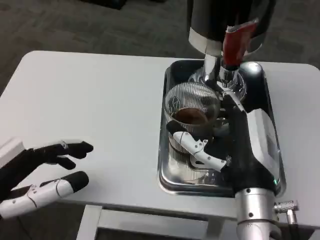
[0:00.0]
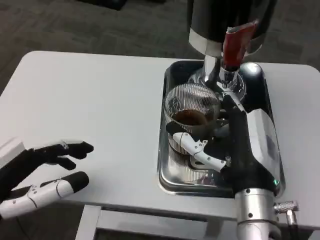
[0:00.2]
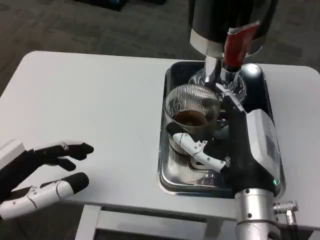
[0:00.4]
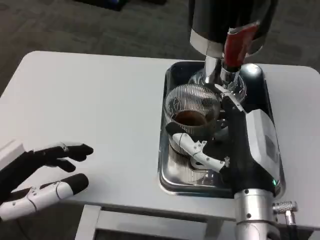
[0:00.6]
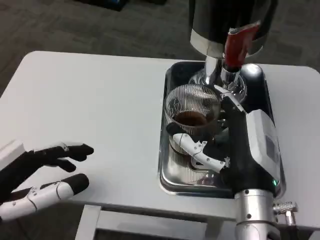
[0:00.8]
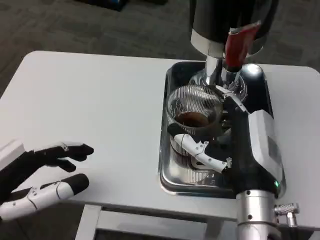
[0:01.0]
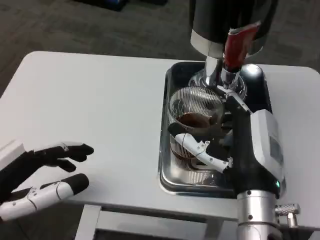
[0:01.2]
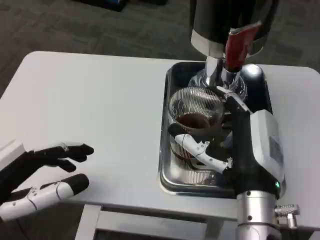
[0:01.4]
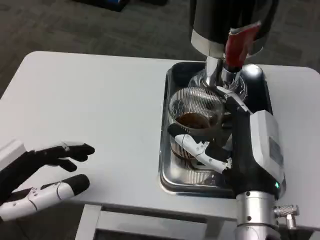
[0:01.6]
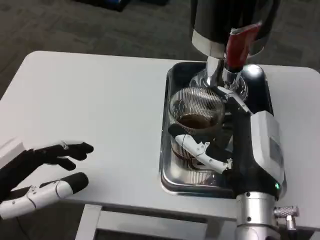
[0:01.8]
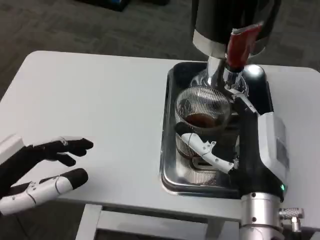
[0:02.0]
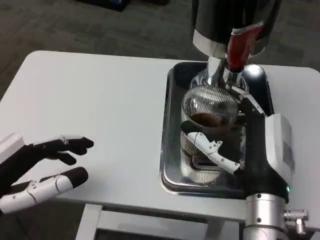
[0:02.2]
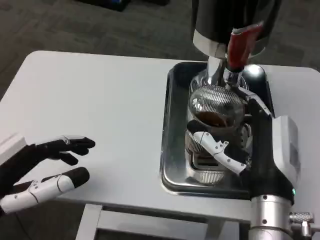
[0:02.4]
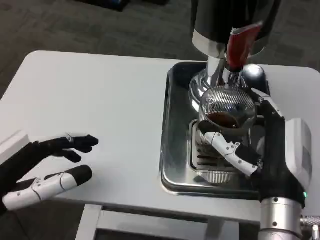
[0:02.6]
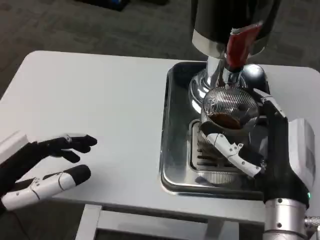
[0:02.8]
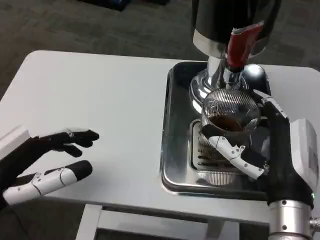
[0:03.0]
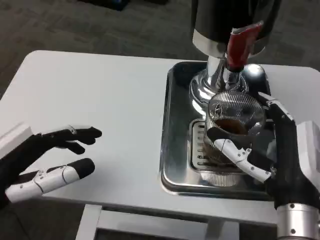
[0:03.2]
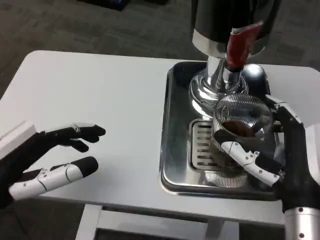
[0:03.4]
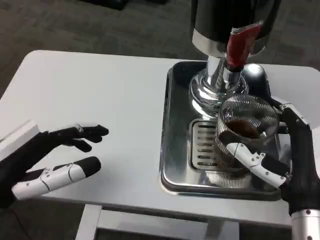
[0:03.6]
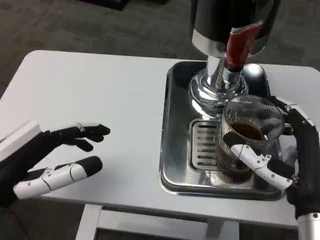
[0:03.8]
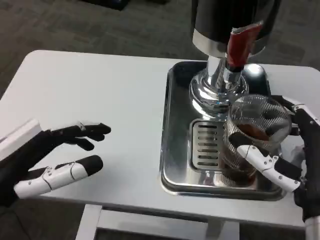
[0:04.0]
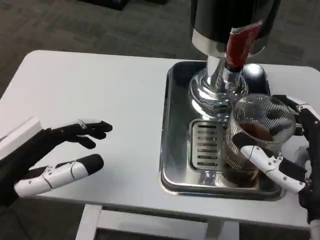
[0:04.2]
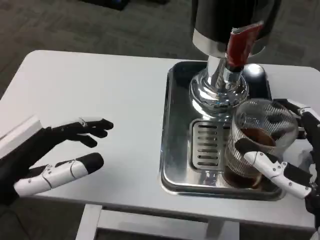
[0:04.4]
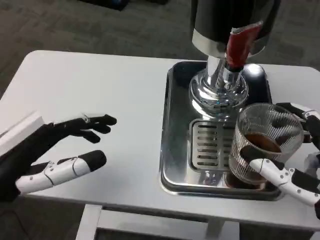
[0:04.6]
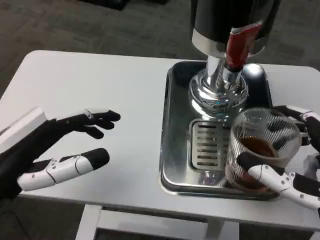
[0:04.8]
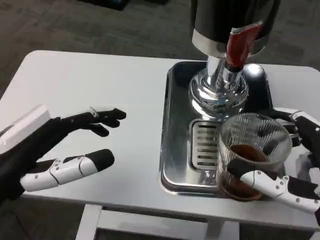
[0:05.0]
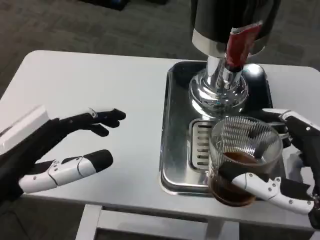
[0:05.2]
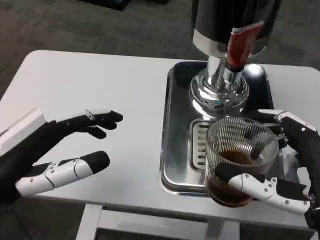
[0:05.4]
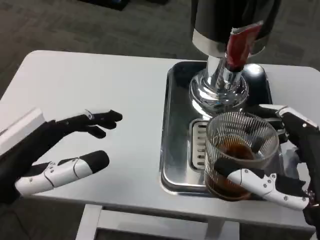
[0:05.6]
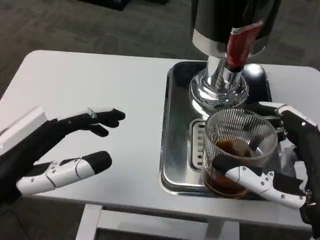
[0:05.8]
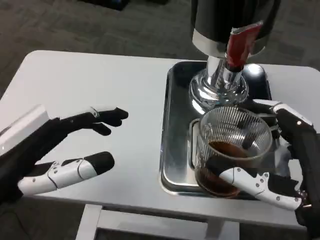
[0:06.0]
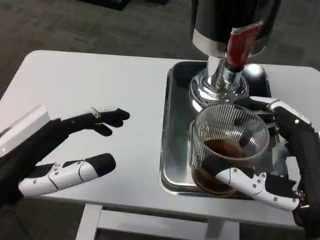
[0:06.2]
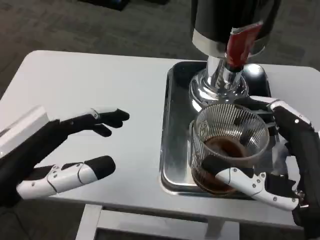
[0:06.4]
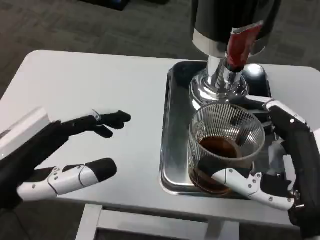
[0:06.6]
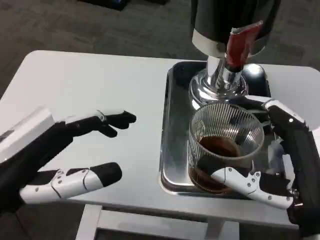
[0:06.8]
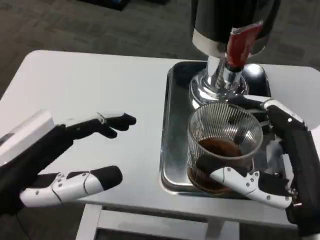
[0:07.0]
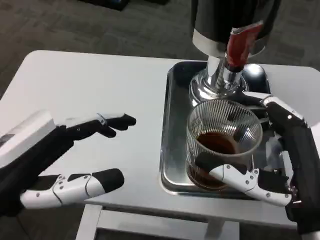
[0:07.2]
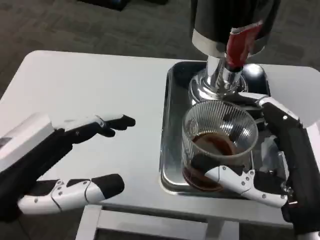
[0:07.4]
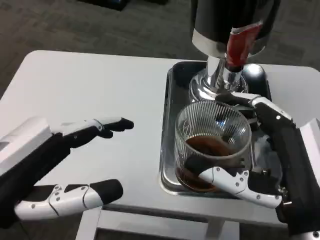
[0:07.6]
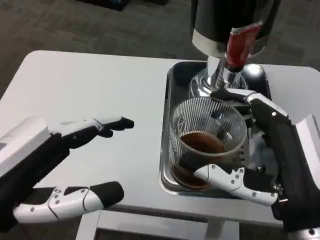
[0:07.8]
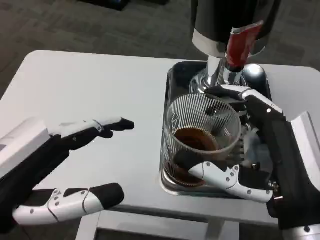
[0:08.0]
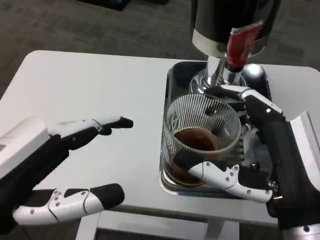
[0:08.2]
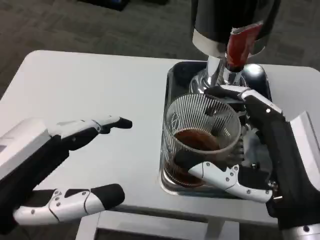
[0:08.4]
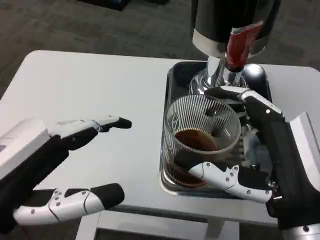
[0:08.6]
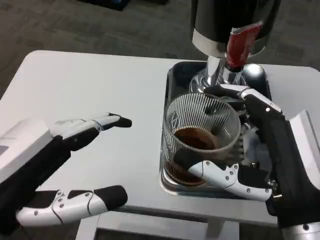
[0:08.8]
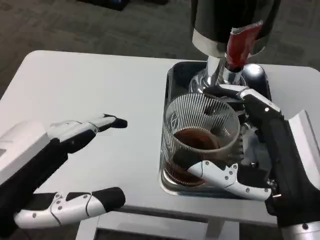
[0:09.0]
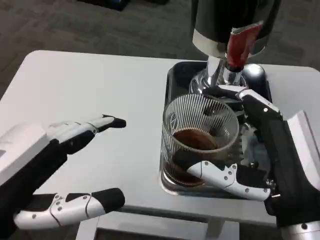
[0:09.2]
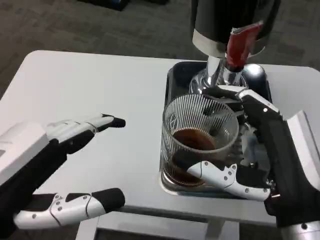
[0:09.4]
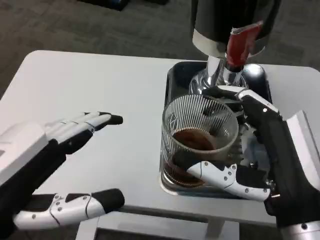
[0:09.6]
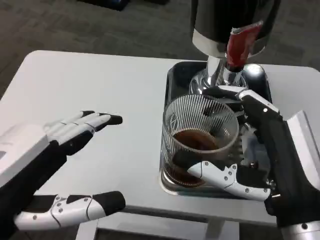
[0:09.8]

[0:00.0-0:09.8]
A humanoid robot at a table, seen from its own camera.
Task of the whole recording: Grasp the cup under the faucet to collect the drink, then remove the cup.
0.0 to 1.4 s: The hands stay close to where they were, moving slightly.
2.8 to 4.2 s: The right hand ends up about 5 cm from where it was.
4.2 to 5.6 s: There are only small adjustments of the hands.
8.4 to 9.8 s: There are only small adjustments of the hands.

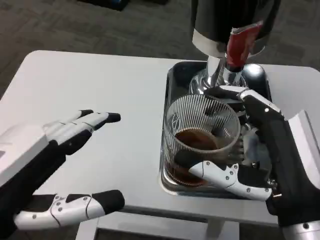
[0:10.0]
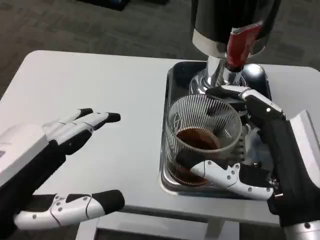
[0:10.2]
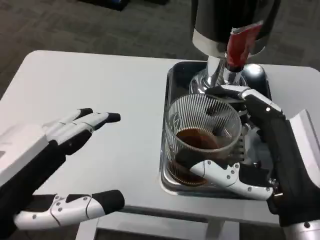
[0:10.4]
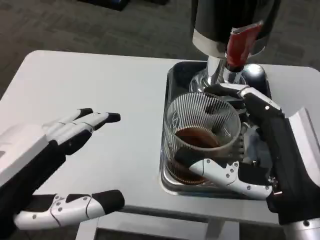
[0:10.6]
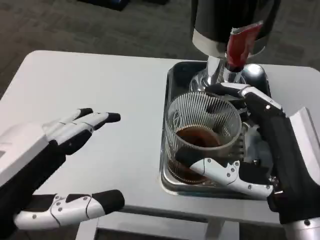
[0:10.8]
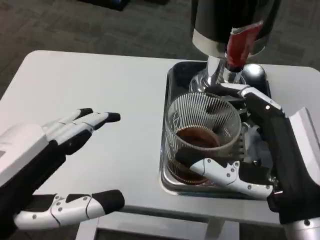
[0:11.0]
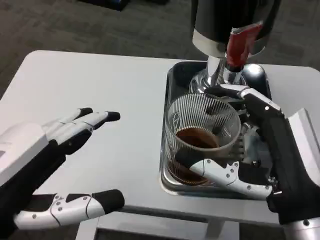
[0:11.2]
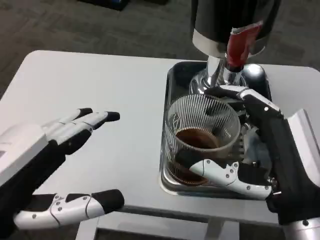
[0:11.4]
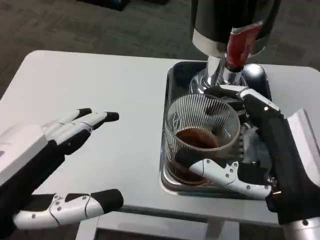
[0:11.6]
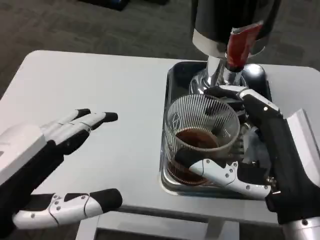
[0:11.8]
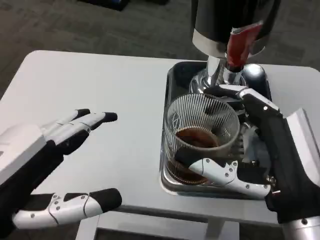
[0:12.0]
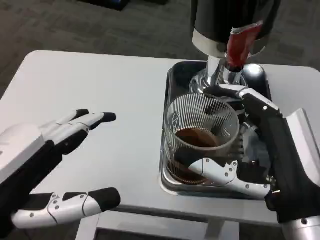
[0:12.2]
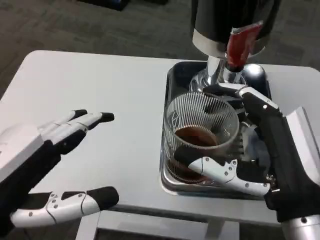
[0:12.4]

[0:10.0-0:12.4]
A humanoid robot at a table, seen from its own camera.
Task of the whole recording: Grasp the cup under the faucet to collect the drink, then remove the cup.
10.0 to 12.4 s: Neither hand changes place.

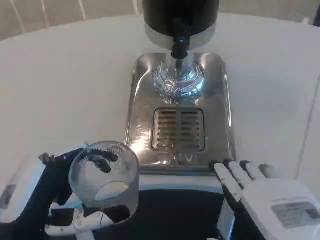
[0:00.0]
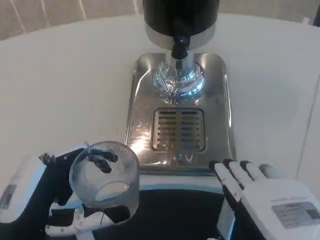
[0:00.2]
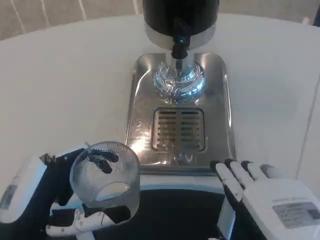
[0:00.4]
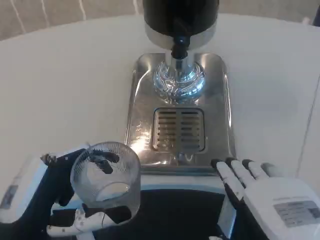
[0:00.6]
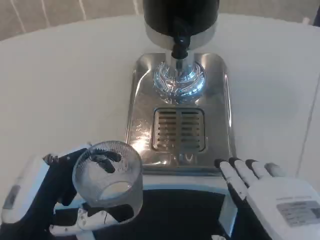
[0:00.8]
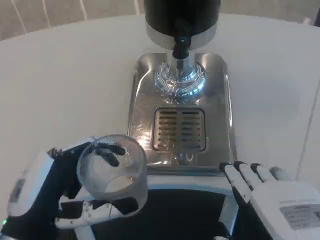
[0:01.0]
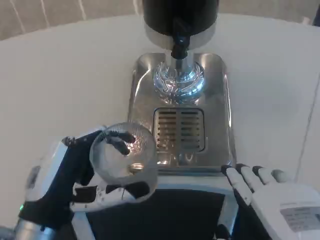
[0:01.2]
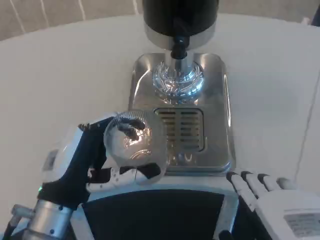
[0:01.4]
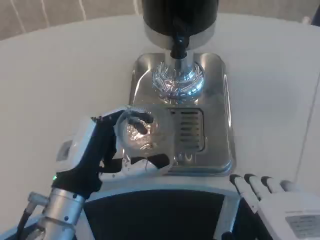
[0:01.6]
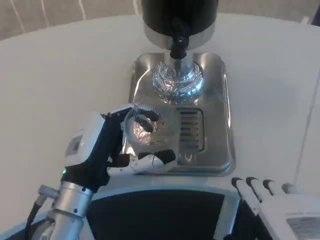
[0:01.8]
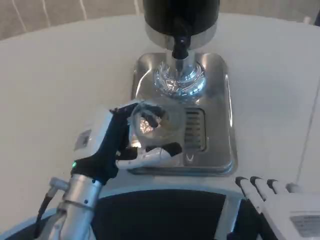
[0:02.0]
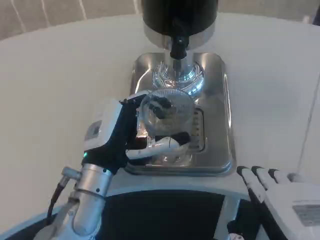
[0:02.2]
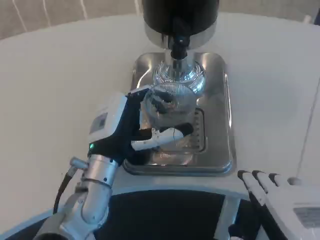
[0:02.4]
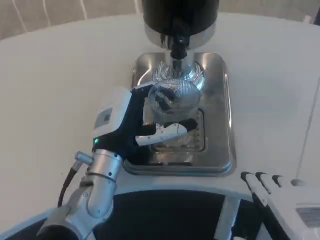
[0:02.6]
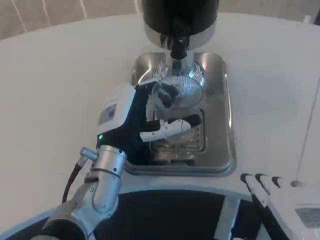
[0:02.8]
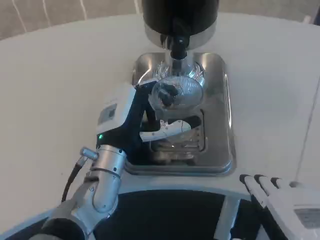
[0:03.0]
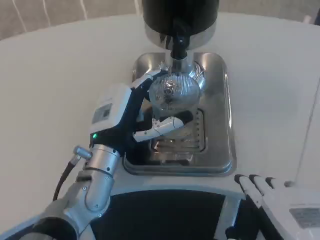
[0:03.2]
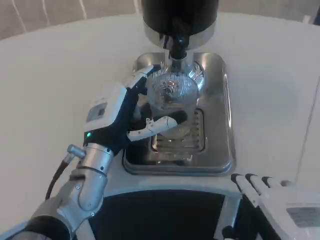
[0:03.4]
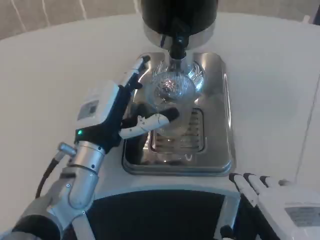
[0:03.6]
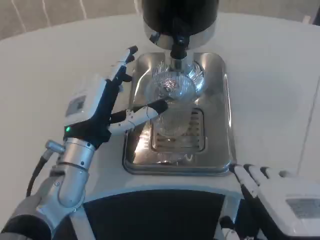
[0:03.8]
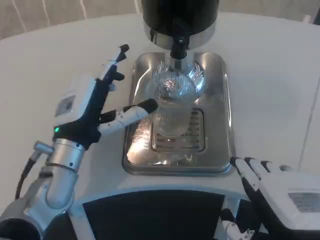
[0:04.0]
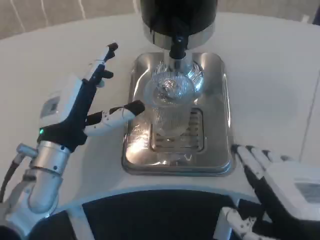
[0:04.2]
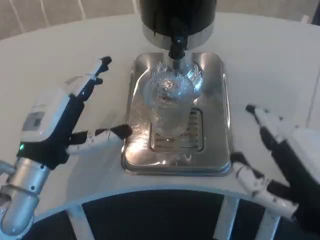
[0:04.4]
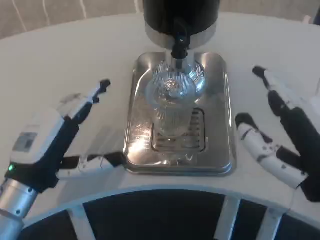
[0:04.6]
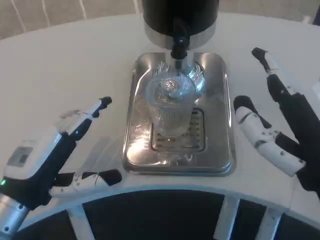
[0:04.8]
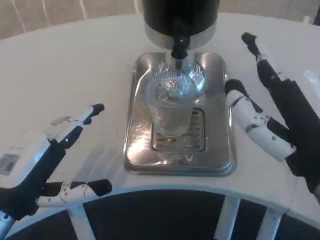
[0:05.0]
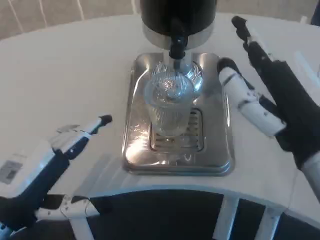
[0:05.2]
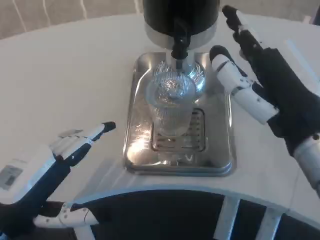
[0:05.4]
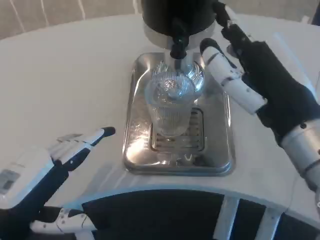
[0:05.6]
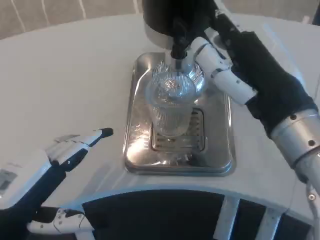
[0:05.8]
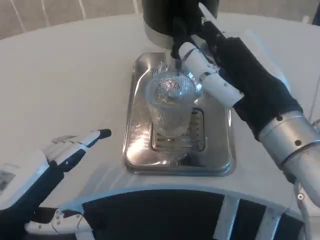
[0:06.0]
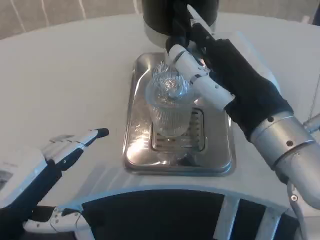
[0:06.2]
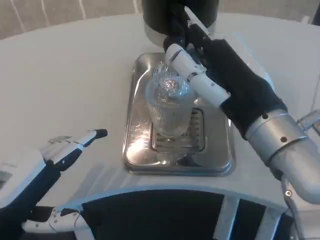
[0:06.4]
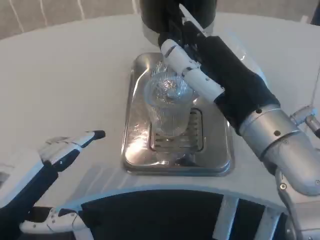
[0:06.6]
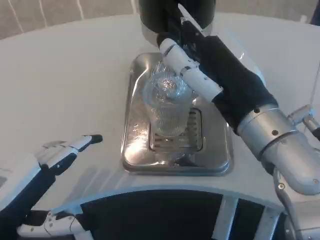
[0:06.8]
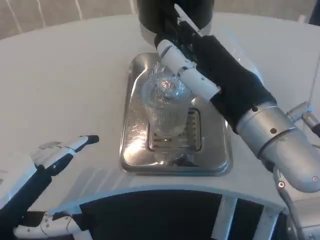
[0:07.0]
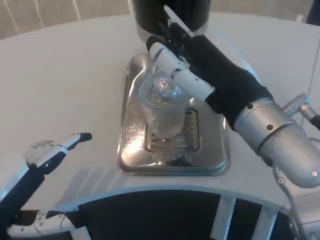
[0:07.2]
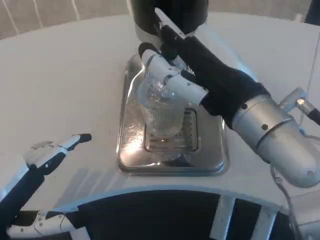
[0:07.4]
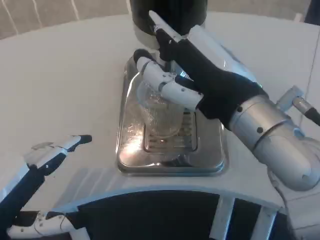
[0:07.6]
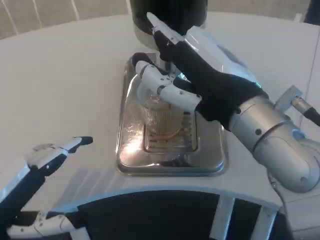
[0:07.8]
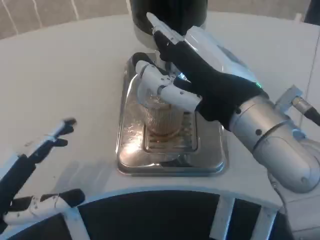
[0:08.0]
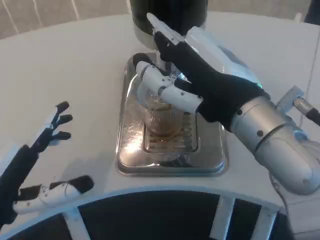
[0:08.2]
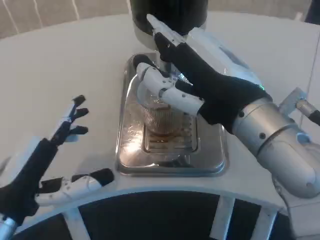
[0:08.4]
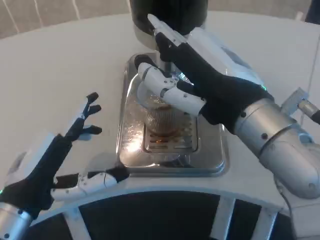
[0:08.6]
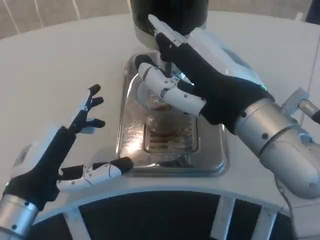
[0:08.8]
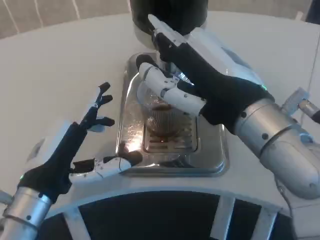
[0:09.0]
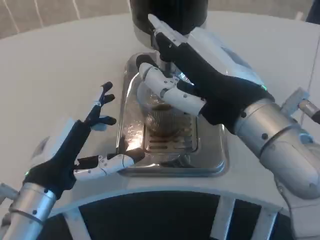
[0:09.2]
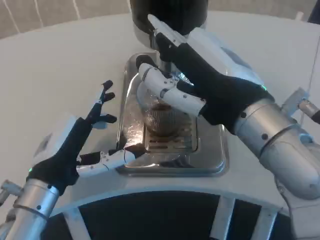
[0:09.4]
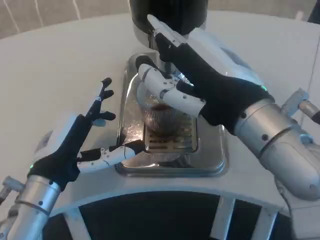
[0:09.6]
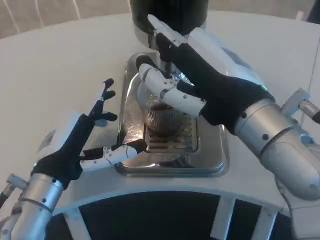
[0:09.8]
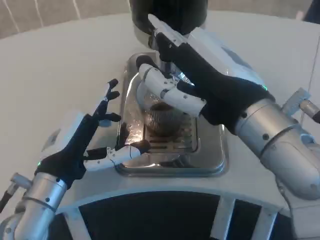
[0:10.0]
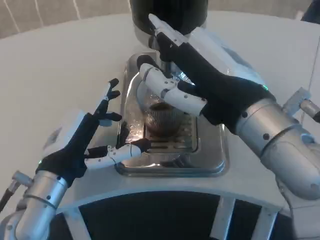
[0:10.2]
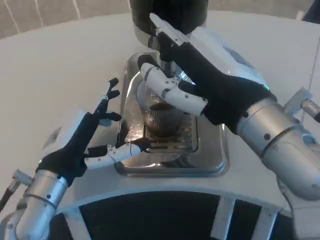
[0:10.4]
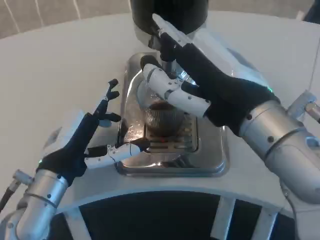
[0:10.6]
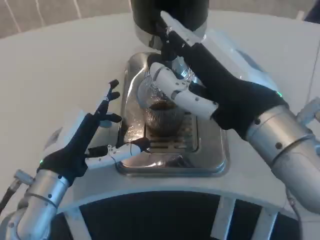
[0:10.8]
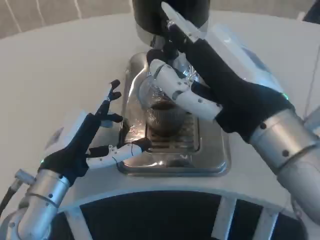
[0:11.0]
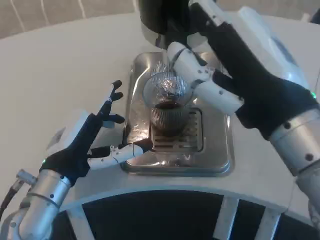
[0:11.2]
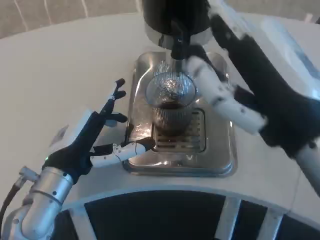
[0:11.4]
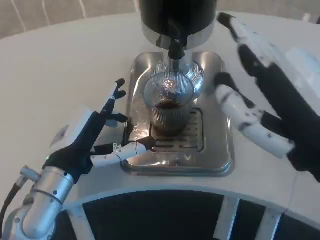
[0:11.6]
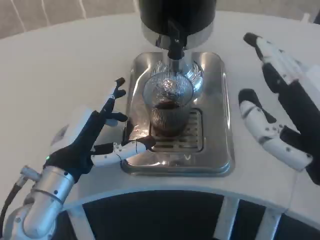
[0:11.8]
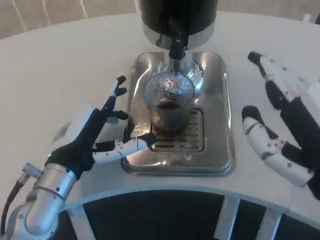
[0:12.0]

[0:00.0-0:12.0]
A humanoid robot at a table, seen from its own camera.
Task of the whole recording: Grasp the cup under the faucet to collect the drink, then remove the cup.
0.0 to 1.6 s: The left hand shifts about 10 cm forward and to the right.
1.6 to 3.0 s: The left hand is displaced forward and to the right by about 10 cm.
3.0 to 4.4 s: The left hand heads to the left, covering approximately 10 cm.
4.4 to 6.0 s: The left hand heads backward, covering approximately 10 cm. Meanwhile the right hand is displaced forward by roughly 10 cm.
7.6 to 9.0 s: The left hand shifts some 10 cm to the right and forward.
9.0 to 10.4 s: The hands make only small movements.
10.4 to 12.0 s: The right hand moves backward and to the right, some 10 cm.
